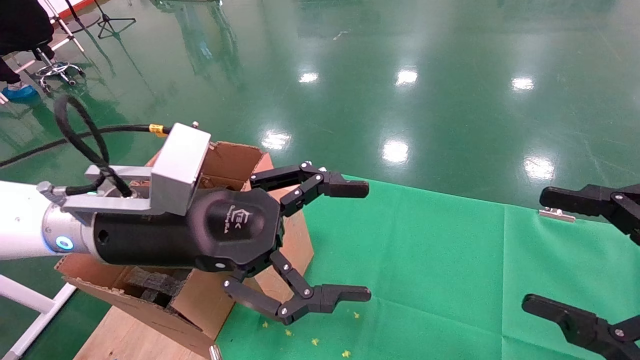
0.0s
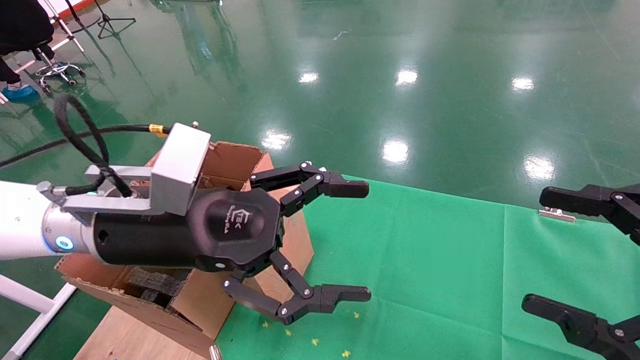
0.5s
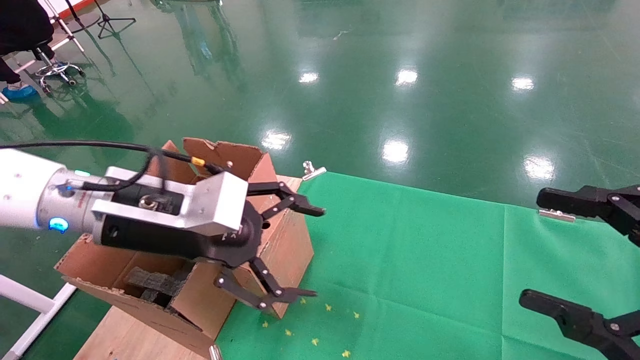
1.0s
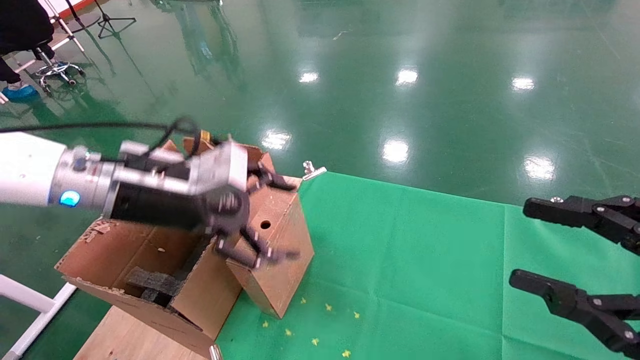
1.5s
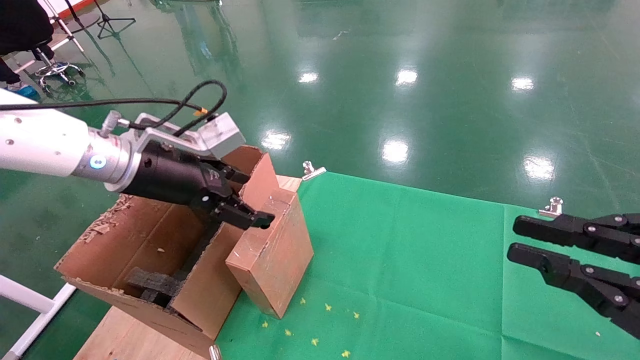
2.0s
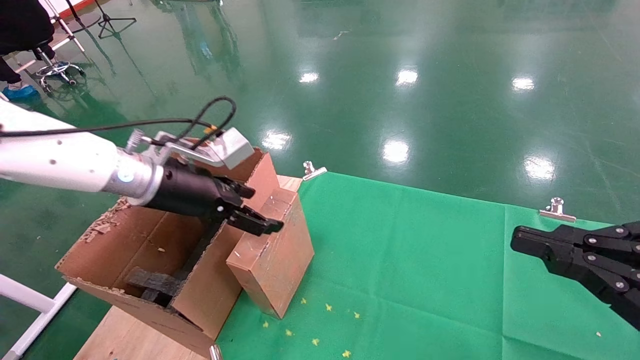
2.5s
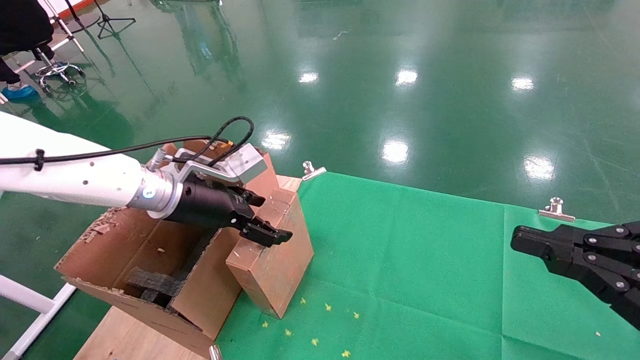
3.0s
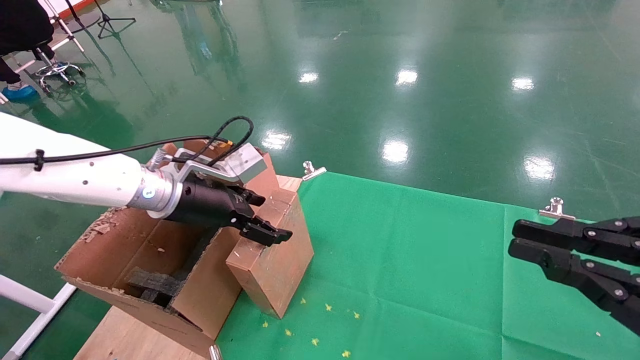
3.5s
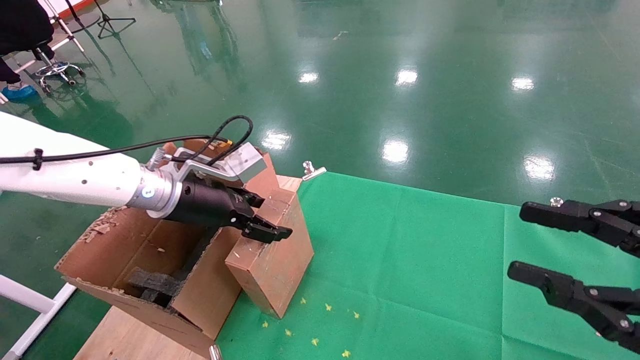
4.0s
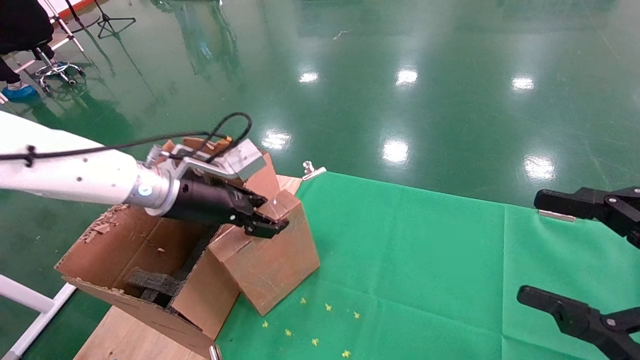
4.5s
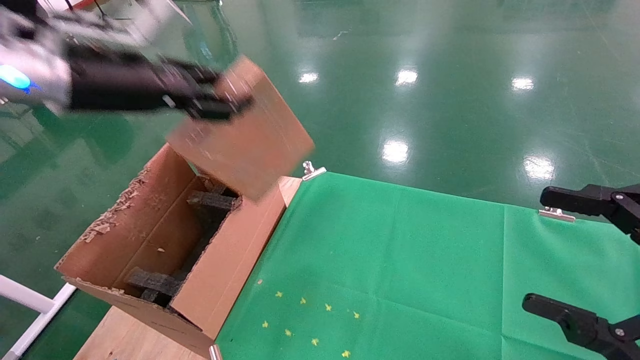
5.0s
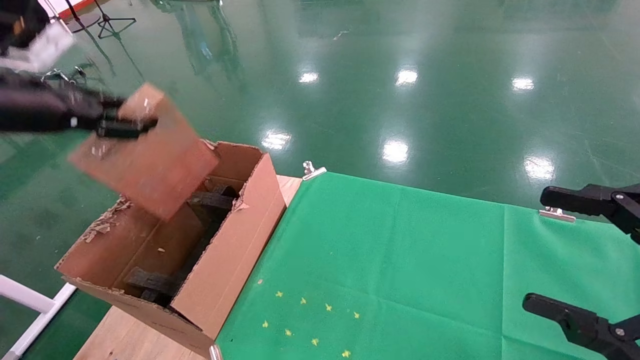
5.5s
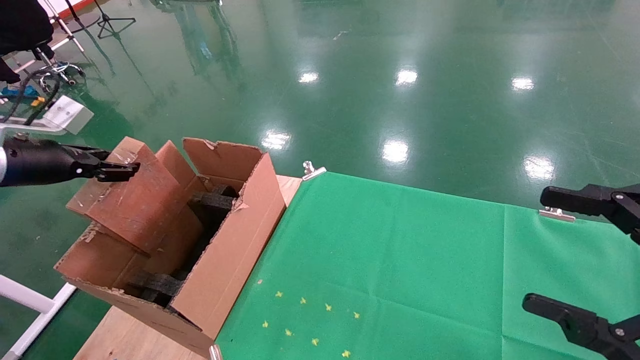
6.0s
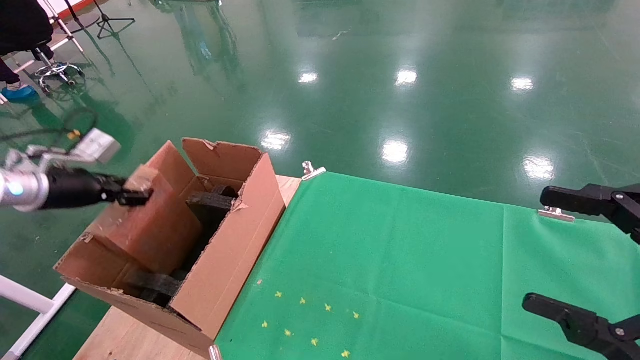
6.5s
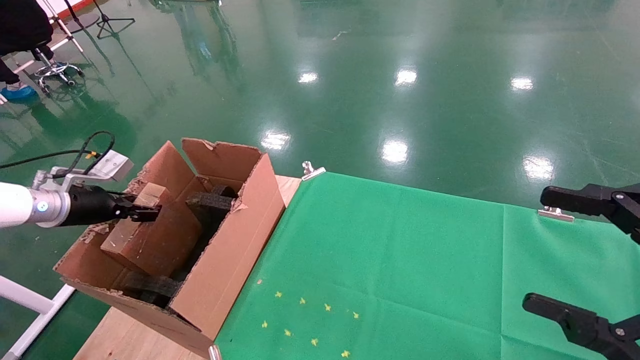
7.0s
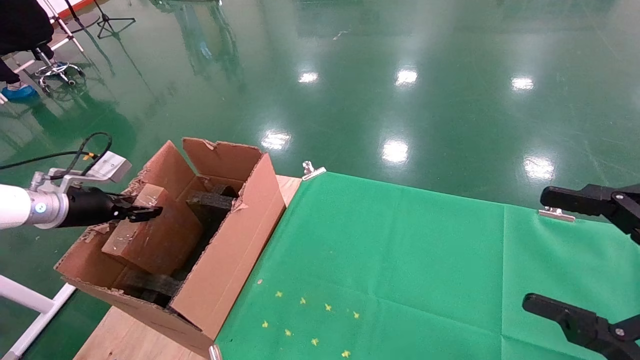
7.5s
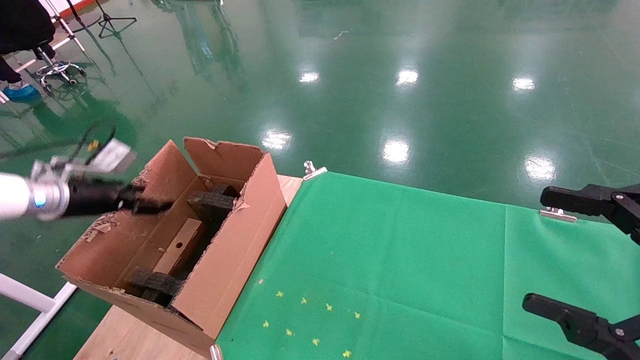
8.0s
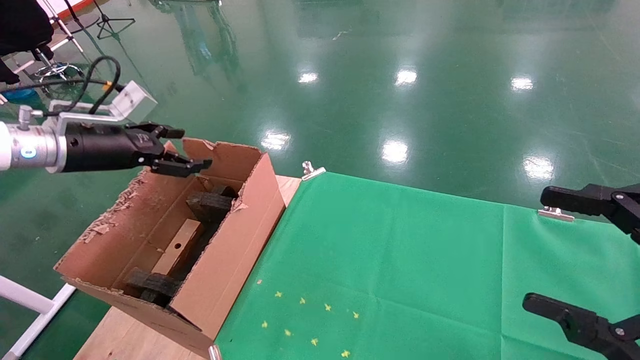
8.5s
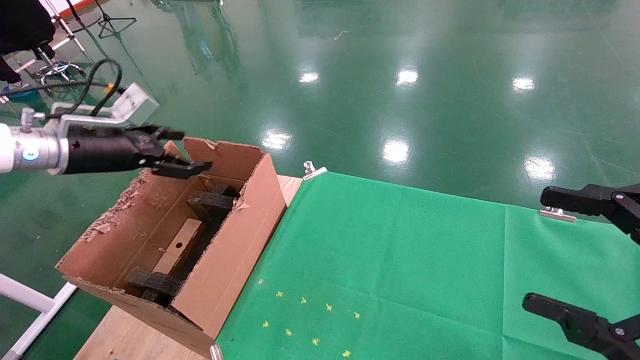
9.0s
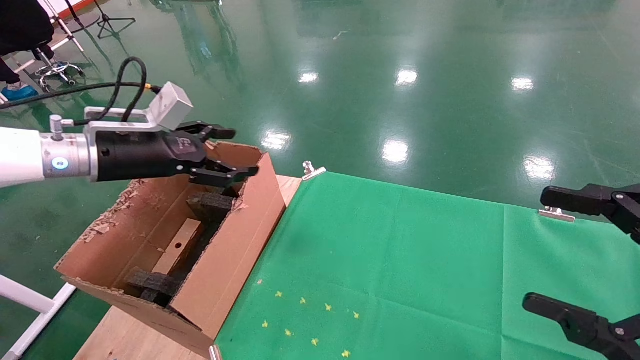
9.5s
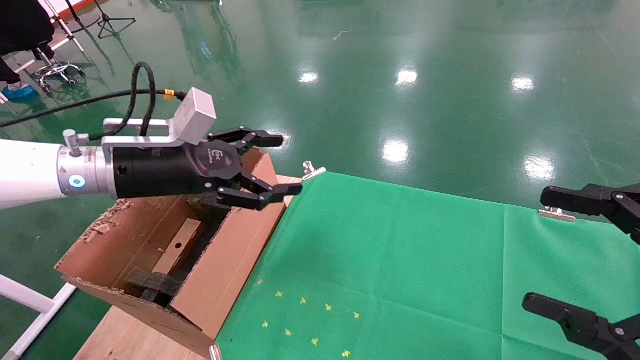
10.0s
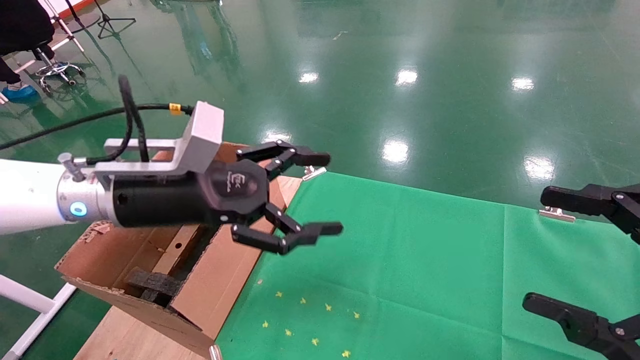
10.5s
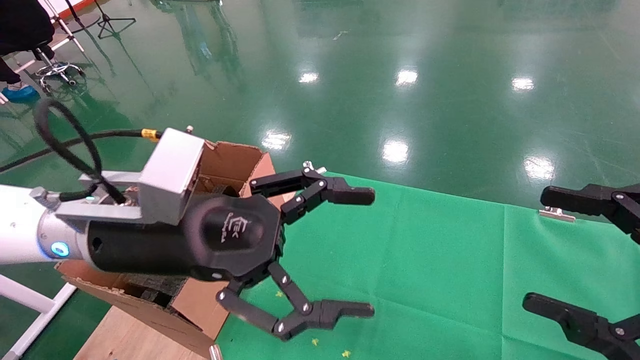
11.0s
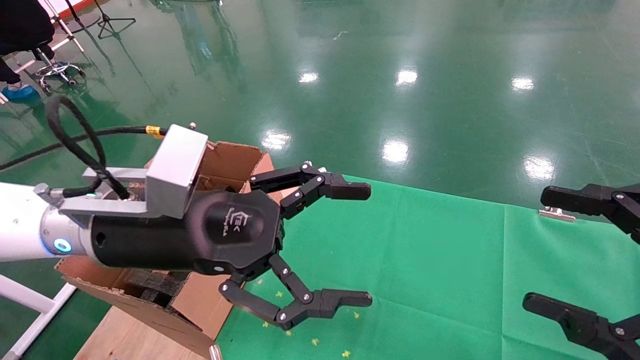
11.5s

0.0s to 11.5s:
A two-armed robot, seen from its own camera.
Task of the whole recording: using a robotic arm to pick up a cardboard box and palace it the carton.
Step, 1.0s to 4.5s: Pick up the mouse and the power cord paper box.
Step, 5.0s to 7.5s: Place the mouse and the power cord paper box into the container.
0.0s to 2.0s: The left gripper travels forward and to the left by roughly 10 cm, while the right gripper closes up.
2.0s to 4.0s: The left gripper ends up approximately 5 cm from where it was.
4.0s to 6.0s: The right gripper opens. The left gripper moves to the left, about 25 cm, and closes its fingers.
6.0s to 7.5s: The left gripper is displaced downward by roughly 10 cm.
7.5s to 9.5s: The left gripper goes approximately 20 cm to the right and upward, and opens.
9.5s to 11.5s: The left gripper shifts approximately 20 cm to the right and backward.

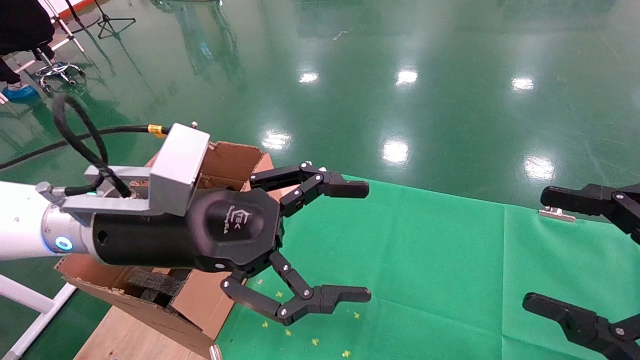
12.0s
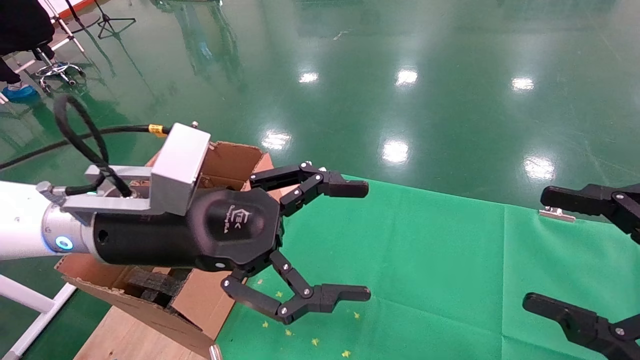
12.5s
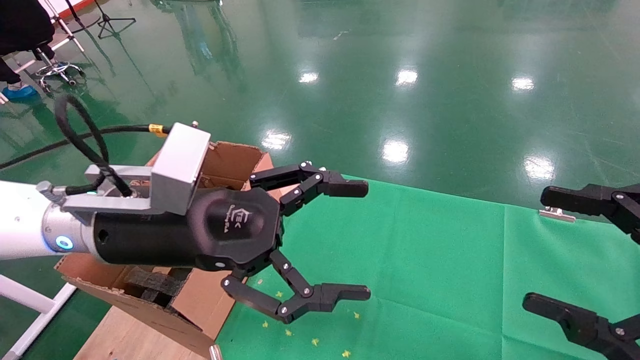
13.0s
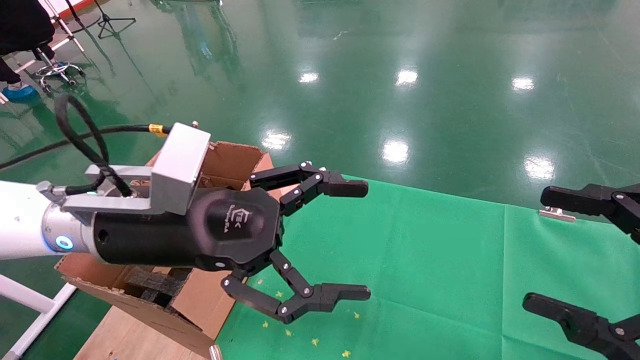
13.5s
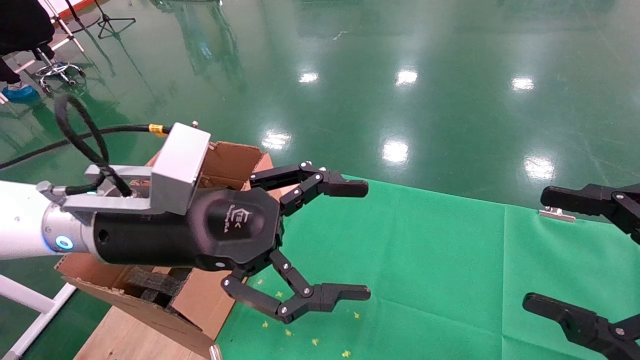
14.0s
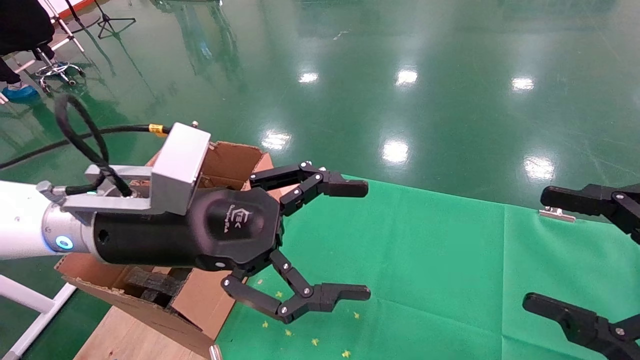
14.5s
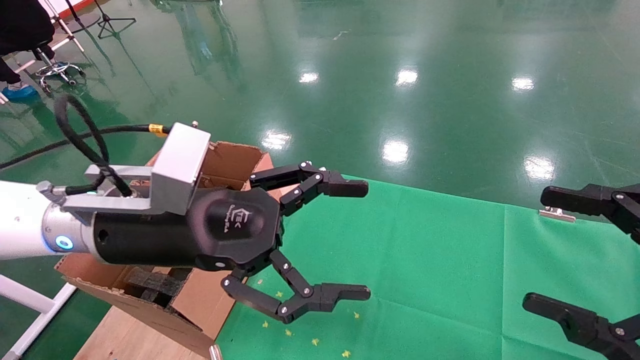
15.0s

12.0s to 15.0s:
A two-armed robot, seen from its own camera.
Task of the whole recording: using a robotic arm to pick up a cardboard box and palace it the carton.
12.0s to 15.0s: Both grippers stay about where they are.
